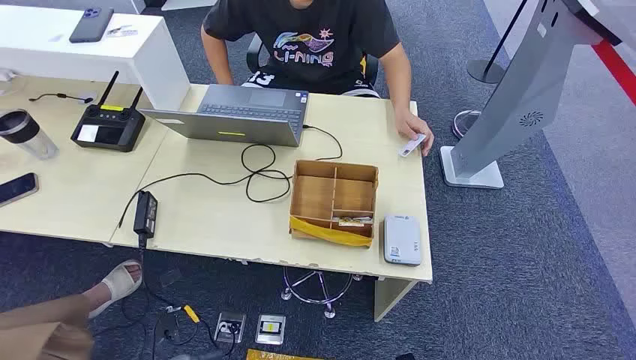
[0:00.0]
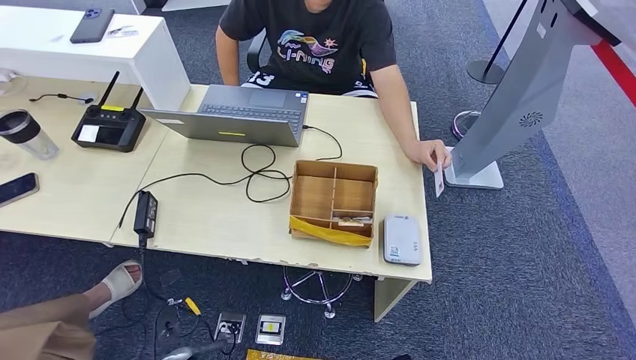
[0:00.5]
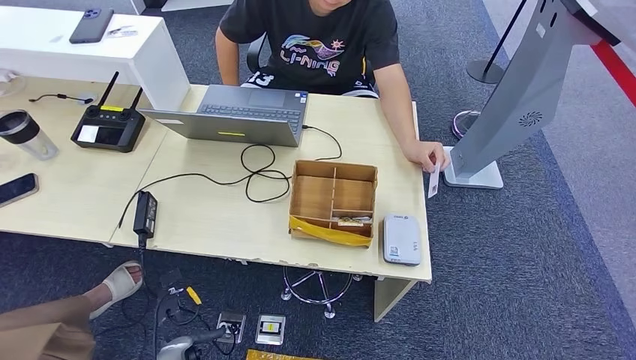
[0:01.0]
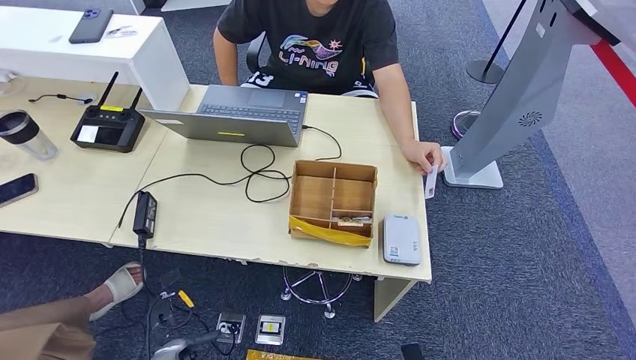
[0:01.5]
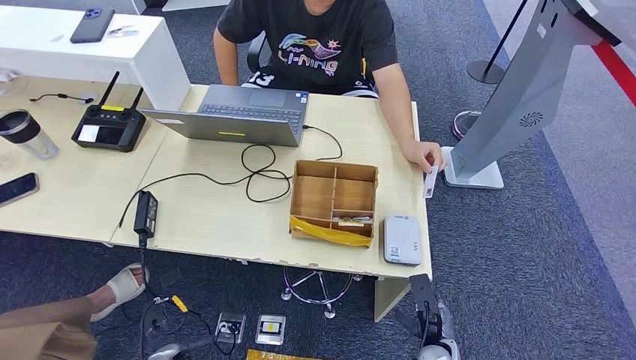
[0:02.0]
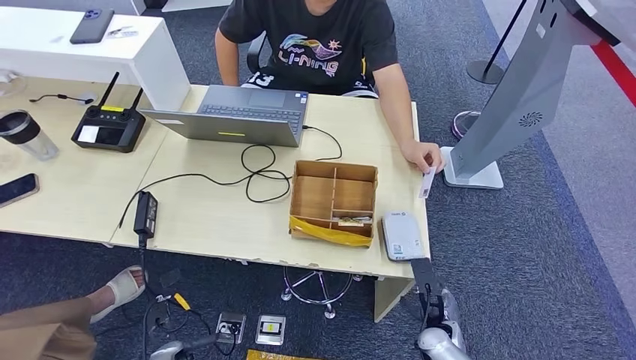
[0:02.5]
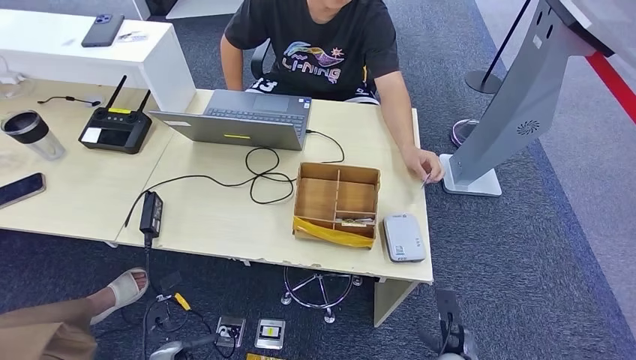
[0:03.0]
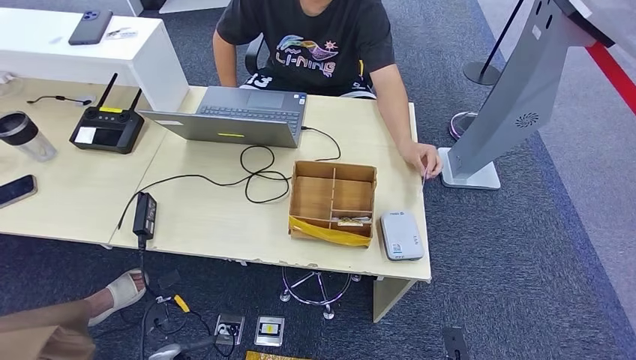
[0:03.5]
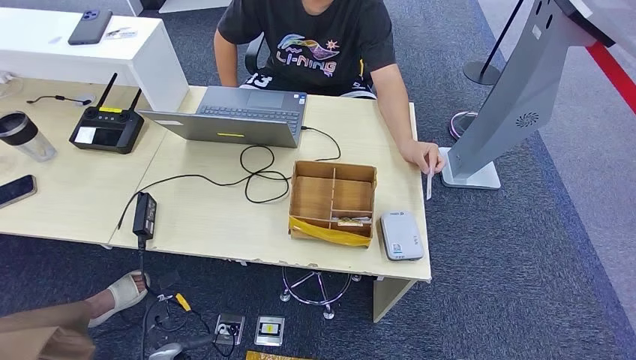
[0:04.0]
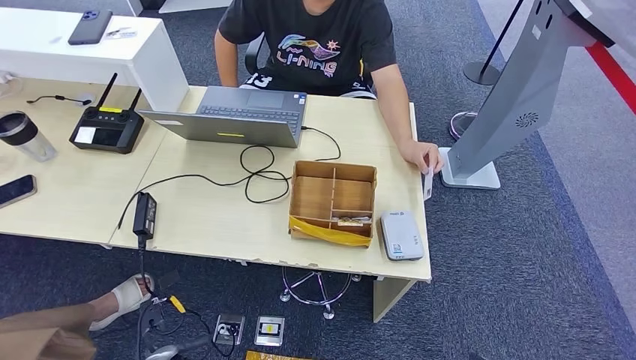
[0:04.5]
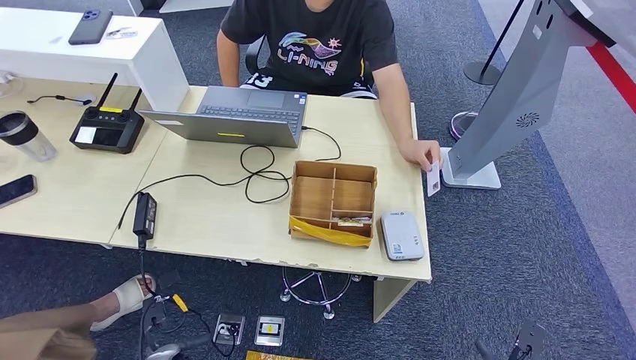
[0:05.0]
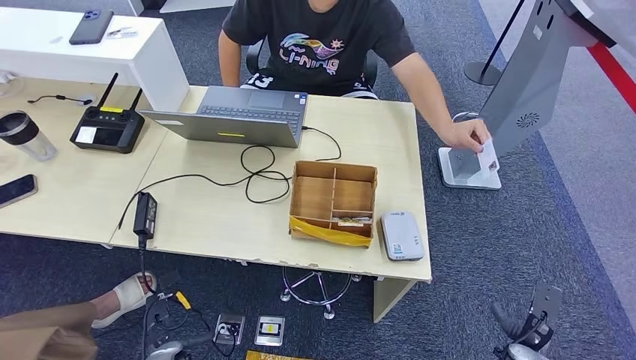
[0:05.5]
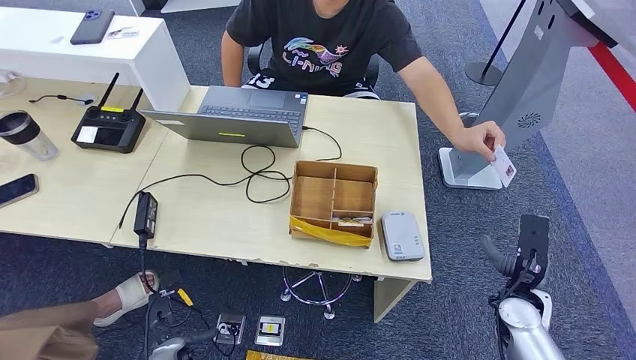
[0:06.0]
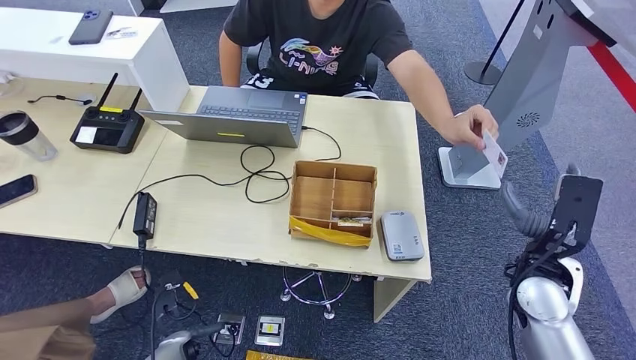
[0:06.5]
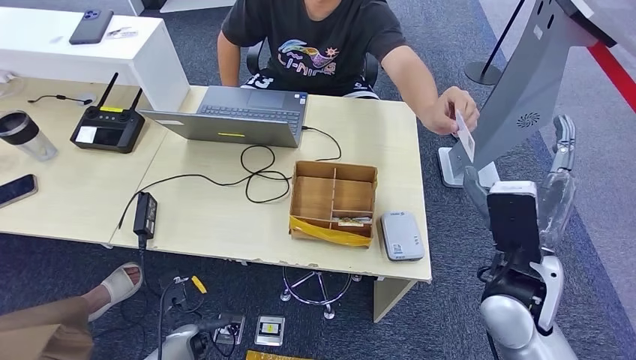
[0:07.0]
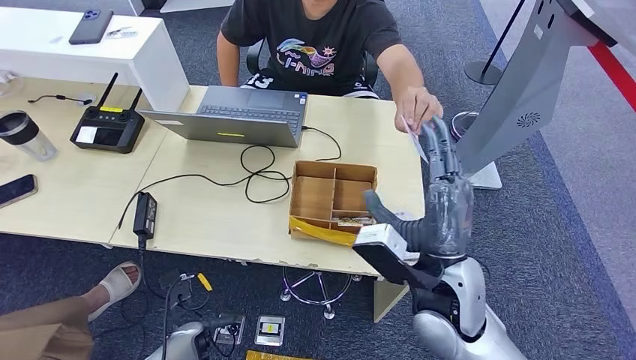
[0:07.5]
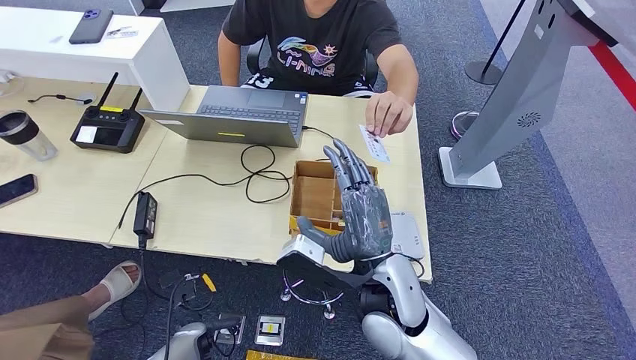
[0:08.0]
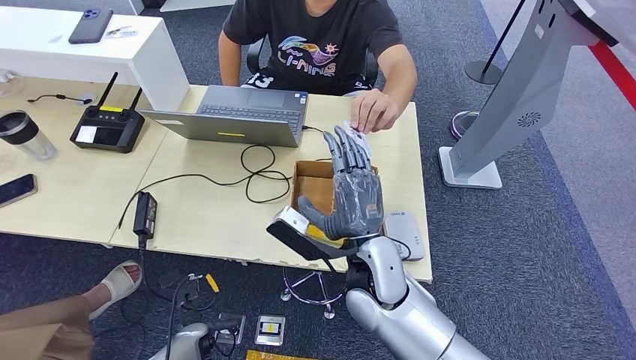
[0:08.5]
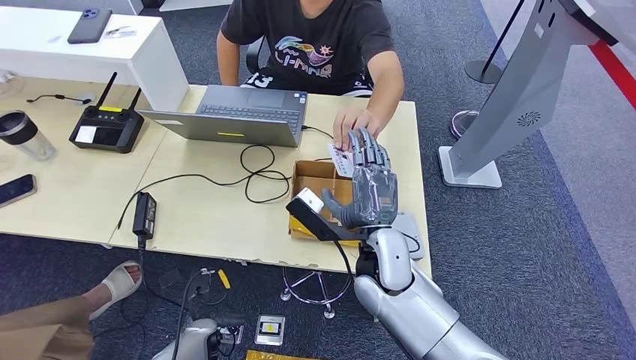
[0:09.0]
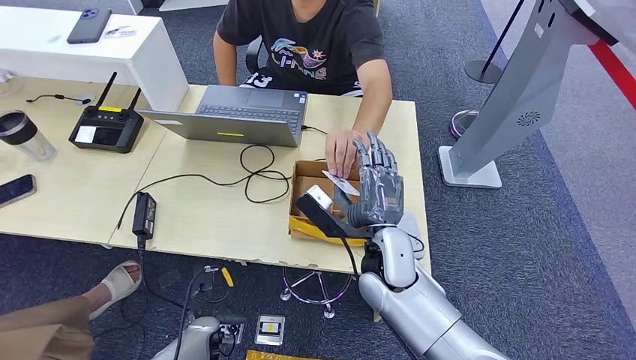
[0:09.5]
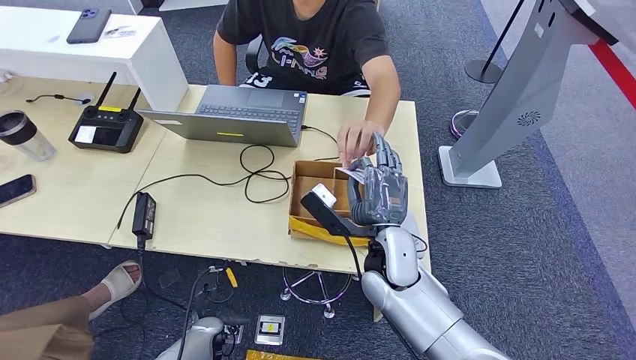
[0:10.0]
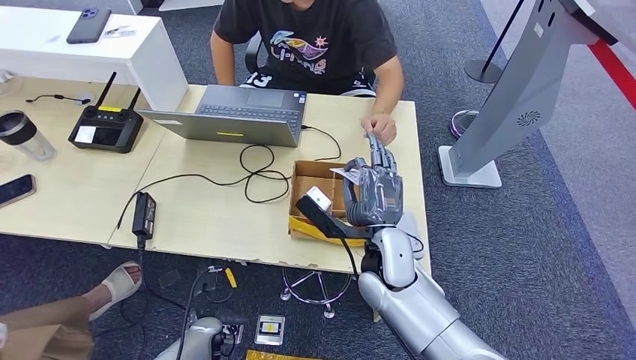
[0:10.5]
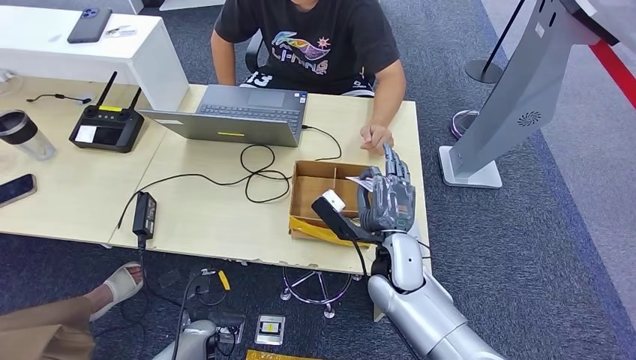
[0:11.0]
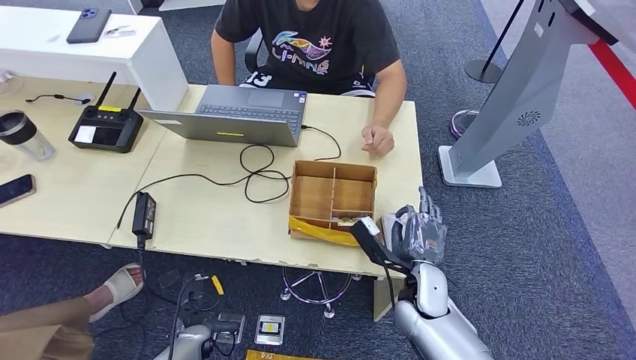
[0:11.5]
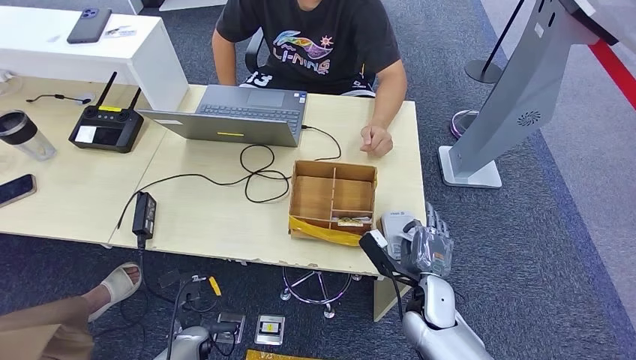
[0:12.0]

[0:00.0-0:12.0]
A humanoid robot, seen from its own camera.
Step, 0:00.0 to 0:10.5: Take the ID card from the person's hand.
0:02.0 to 0:04.0: The right hand travels backward, to the right and downward by approximately 15 cm.
0:04.0 to 0:06.0: The right hand goes approximately 25 cm forward and upward.
0:06.0 to 0:08.0: The right hand is displaced to the left and upward by some 30 cm. The left hand moves approximately 5 cm.
0:08.0 to 0:10.0: The right hand heads forward, covering roughly 5 cm.
0:10.0 to 0:12.0: The right hand travels downward and to the right by roughly 15 cm.

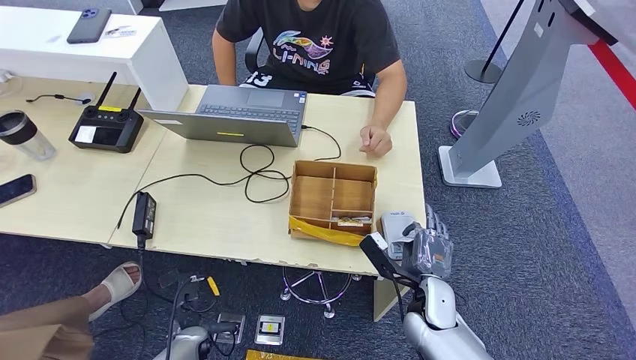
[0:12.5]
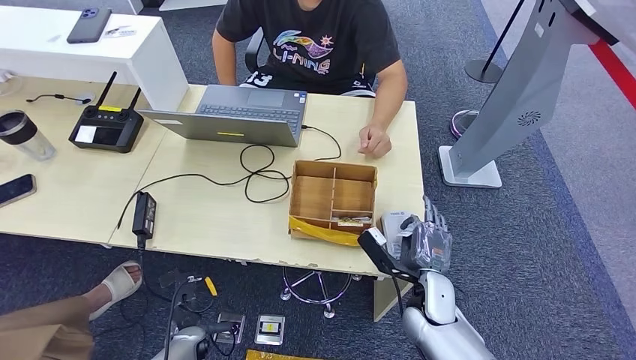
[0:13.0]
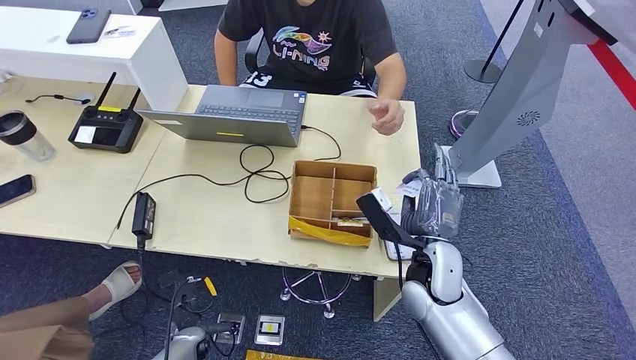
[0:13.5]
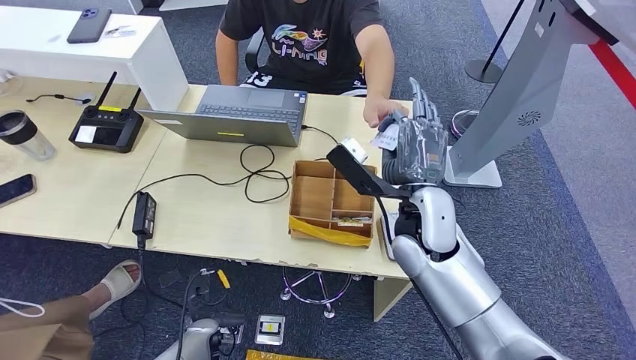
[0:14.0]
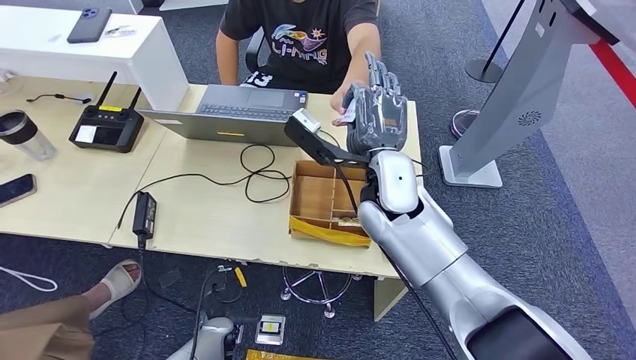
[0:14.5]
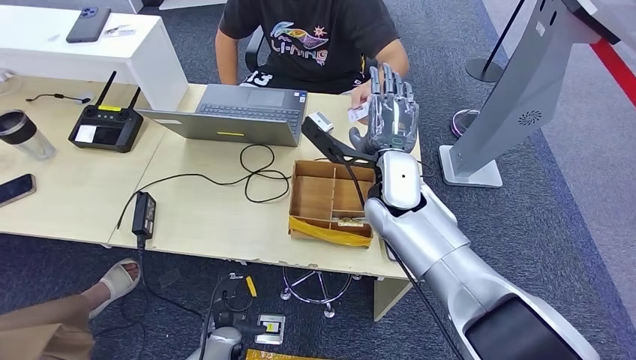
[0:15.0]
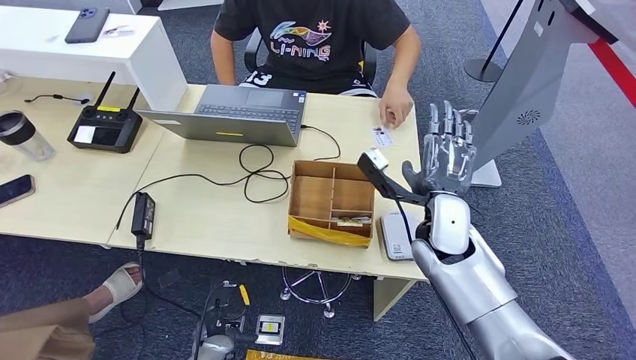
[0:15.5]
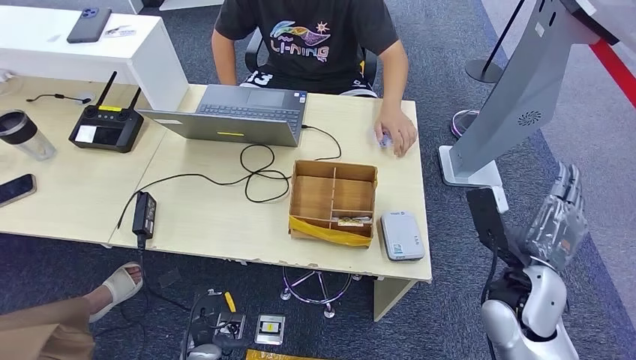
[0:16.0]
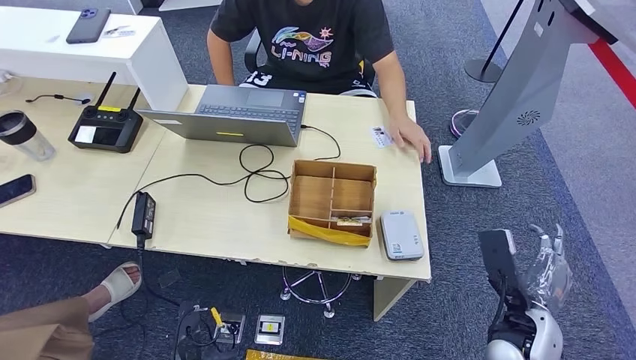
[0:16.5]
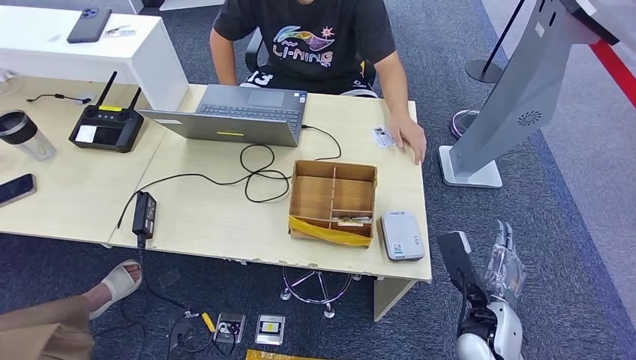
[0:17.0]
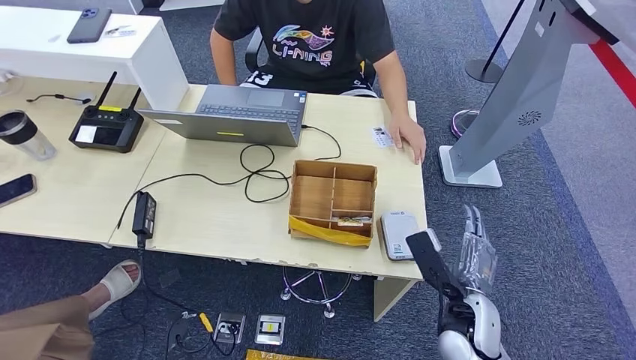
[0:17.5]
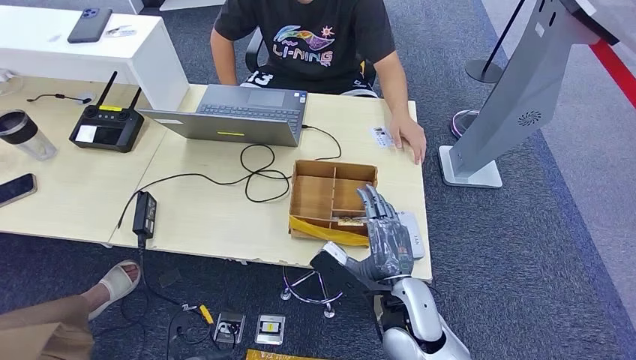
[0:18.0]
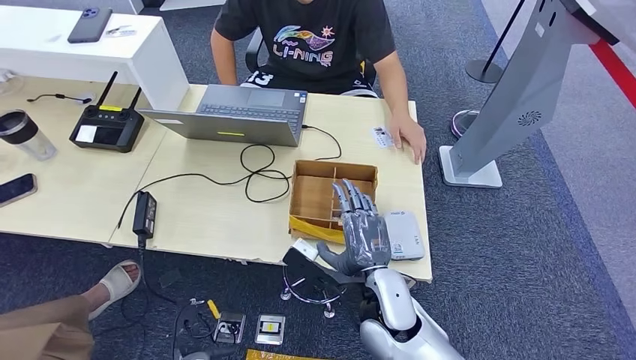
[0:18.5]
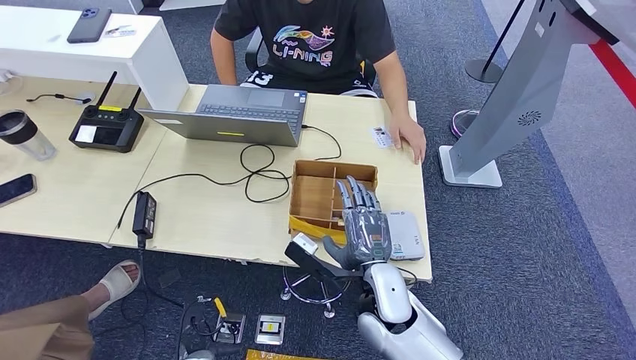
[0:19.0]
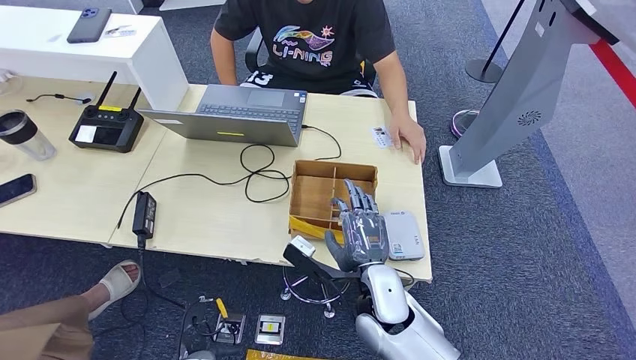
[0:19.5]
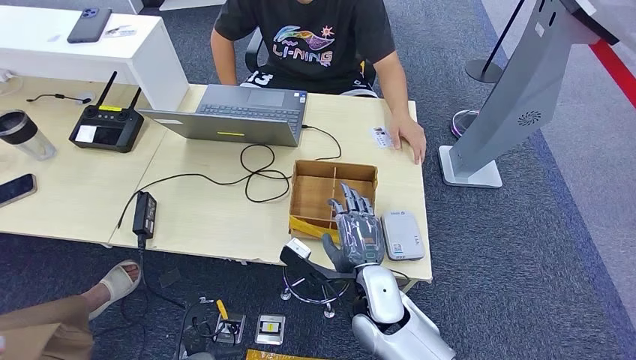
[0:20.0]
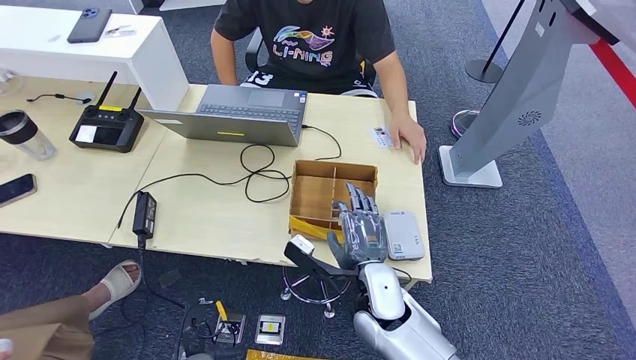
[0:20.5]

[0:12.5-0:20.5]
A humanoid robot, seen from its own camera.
Step, 0:13.0 to 0:15.0: Hand the ID card to the person.
0:12.5 to 0:14.5: The left hand travels to the right by roughly 5 cm. Meanwhile the right hand moves upward, to the left and forward, roughly 30 cm.
0:14.5 to 0:16.5: The left hand goes approximately 10 cm backward, while the right hand moves to the right, downward and backward, approximately 35 cm.
0:16.5 to 0:18.5: The right hand goes approximately 25 cm to the left.
0:18.5 to 0:20.5: The hands move only a little.
